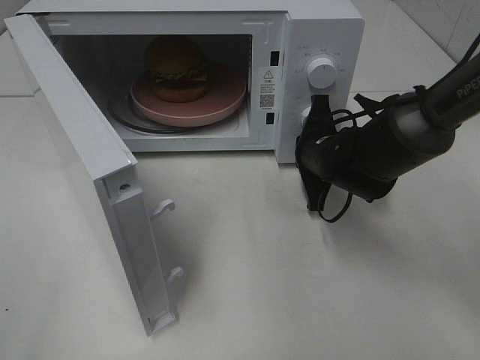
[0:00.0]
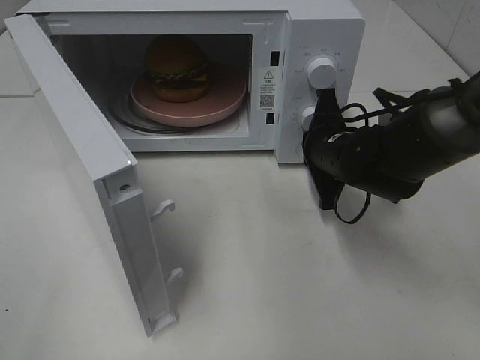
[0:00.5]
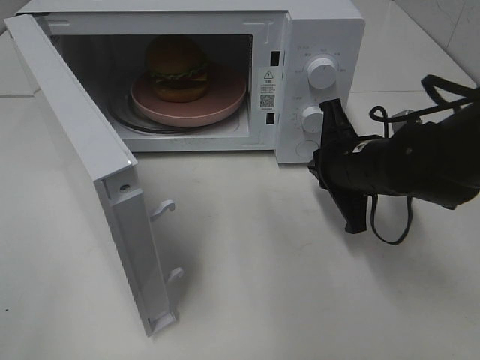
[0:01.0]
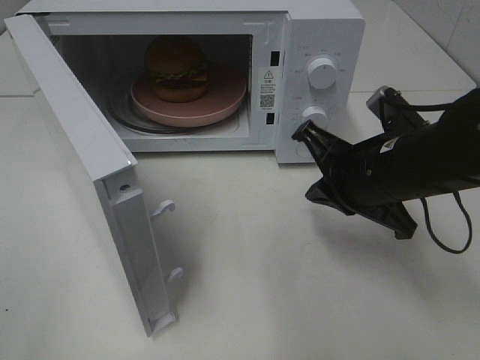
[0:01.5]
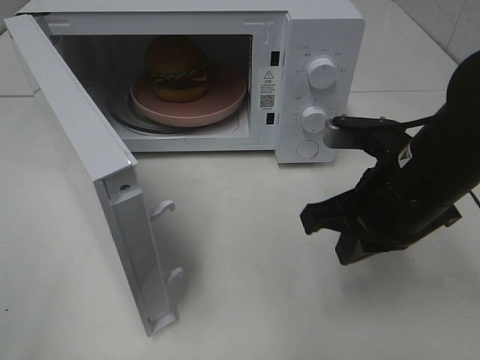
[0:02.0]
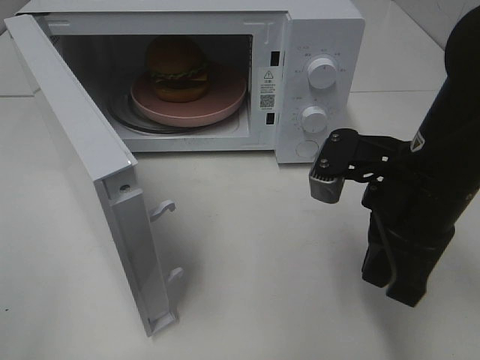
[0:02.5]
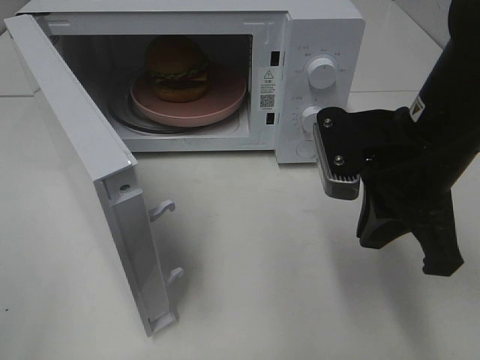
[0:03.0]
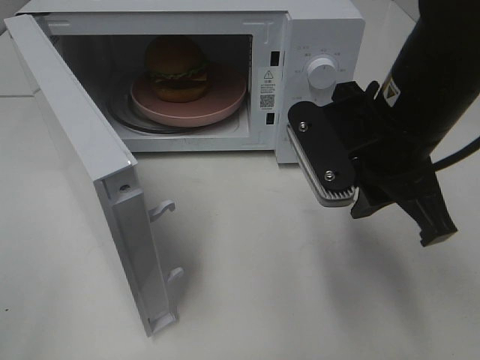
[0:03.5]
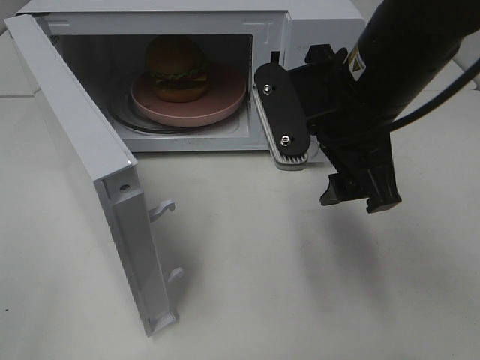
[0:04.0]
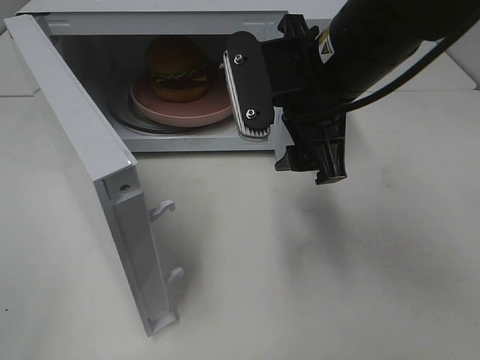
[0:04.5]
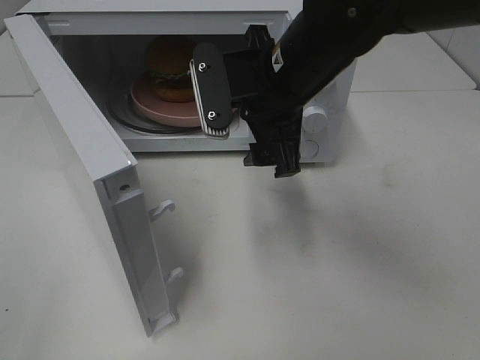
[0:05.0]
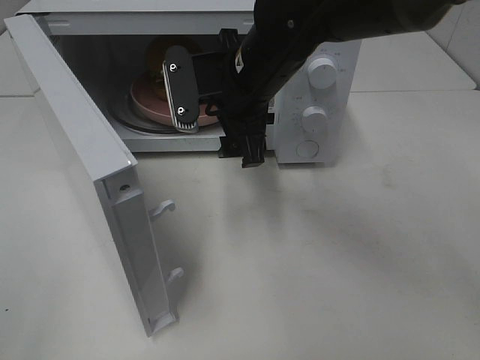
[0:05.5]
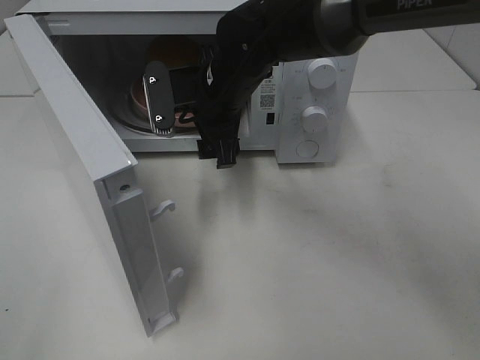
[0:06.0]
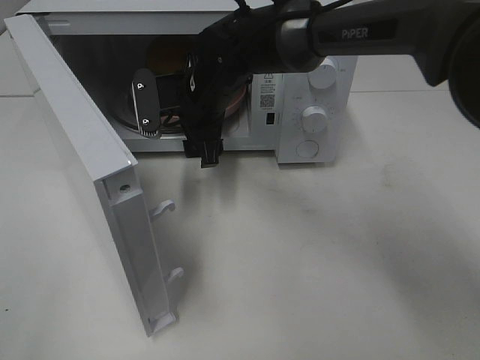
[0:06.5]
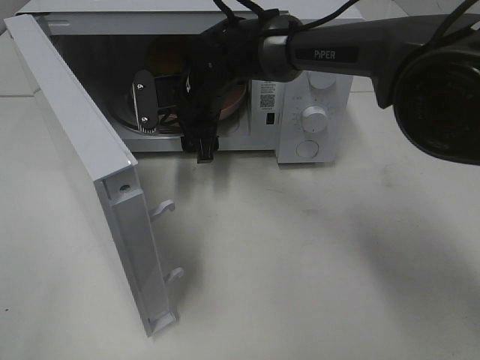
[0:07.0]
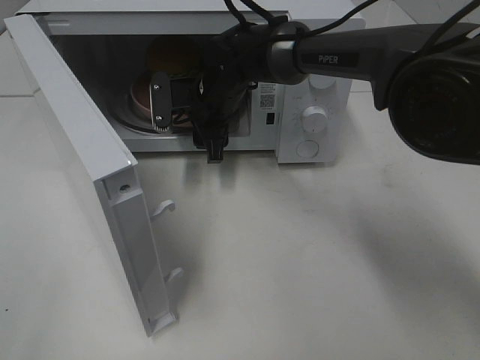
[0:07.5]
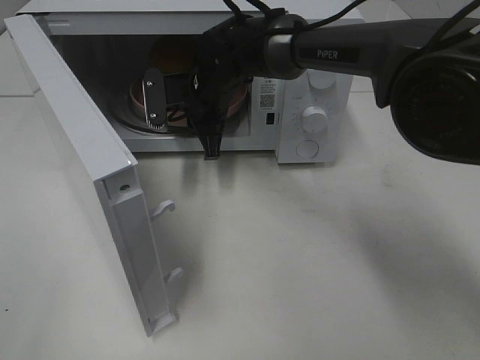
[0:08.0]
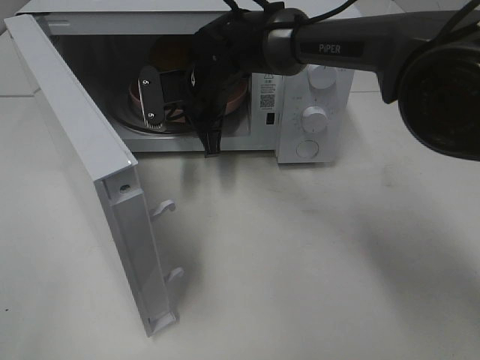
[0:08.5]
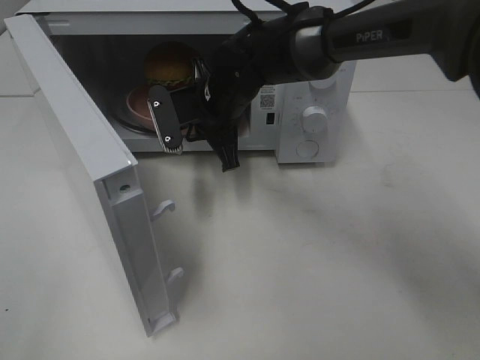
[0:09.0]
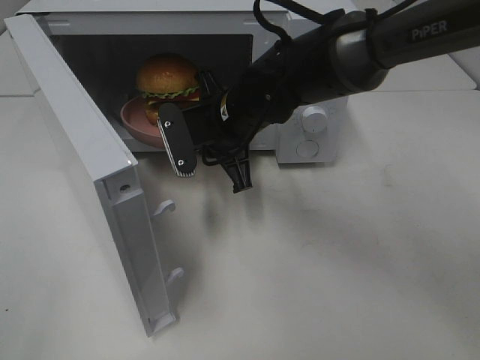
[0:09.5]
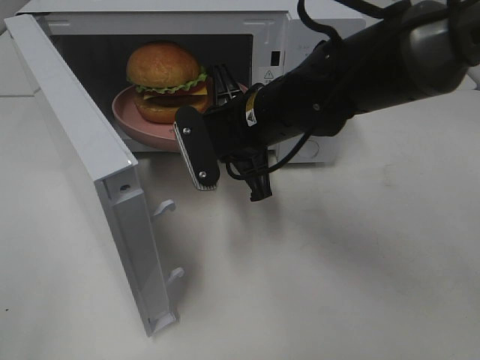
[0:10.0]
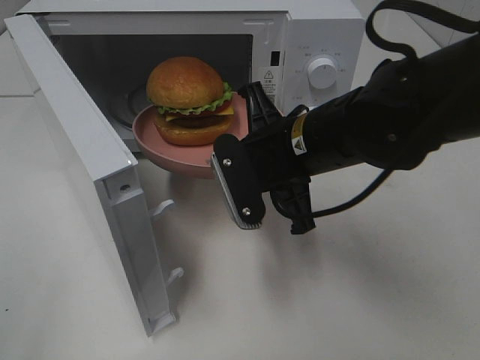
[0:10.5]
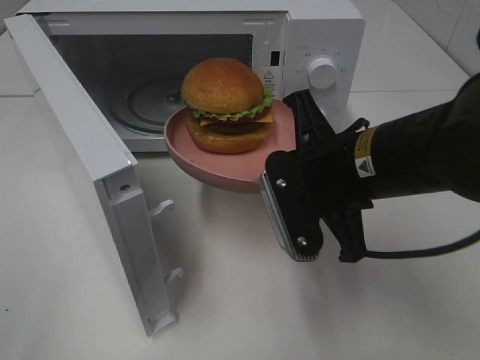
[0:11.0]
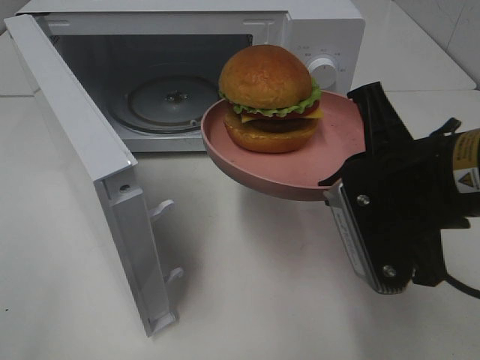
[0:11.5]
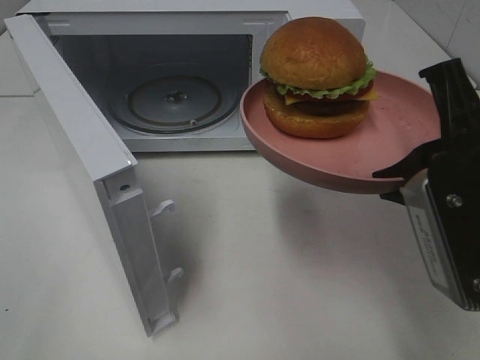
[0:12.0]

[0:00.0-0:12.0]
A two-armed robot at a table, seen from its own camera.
Task of the whole recording: Heat the burger.
Step, 0:01.0 to 0:08.0: Right hand: grab the plate with the hamburger.
0:00.0 to 0:02.0: The right gripper travels backward and upward by some 15 cm.
0:02.0 to 0:04.0: The right gripper shifts approximately 10 cm upward and to the left, and opens.
0:04.0 to 0:06.0: The right gripper is displaced forward, to the left and downward by approximately 20 cm.
0:06.0 to 0:08.0: The right gripper shifts approximately 5 cm forward, and closes.
0:08.0 to 0:10.0: The right gripper travels backward and to the right by roughly 15 cm.
0:10.0 to 0:12.0: The right gripper heads backward, to the right and upward, covering roughly 25 cm.

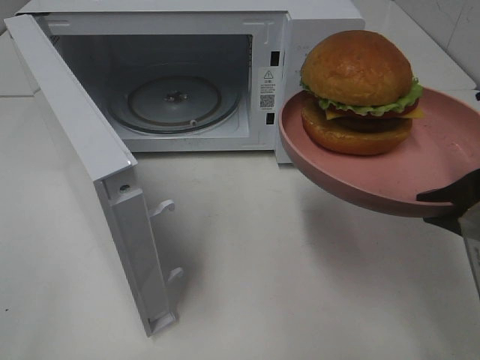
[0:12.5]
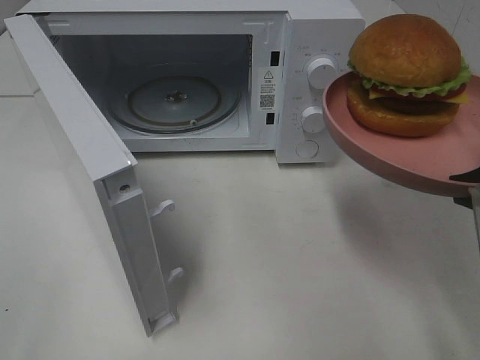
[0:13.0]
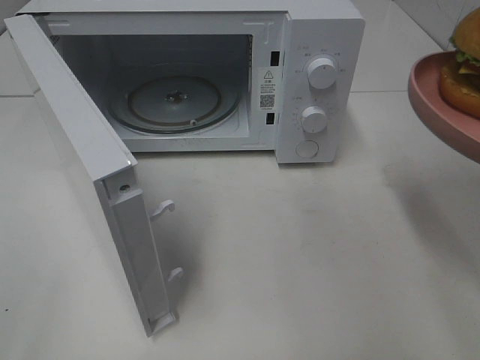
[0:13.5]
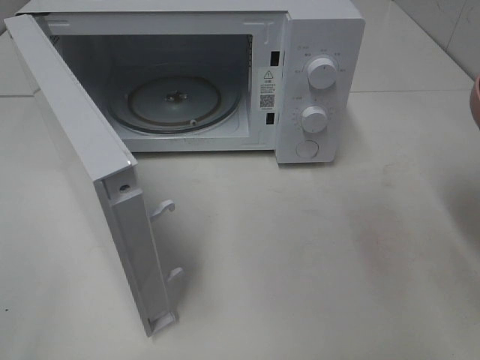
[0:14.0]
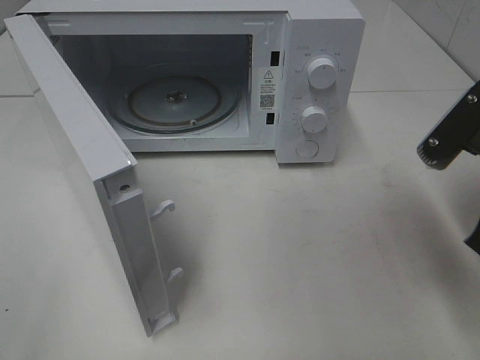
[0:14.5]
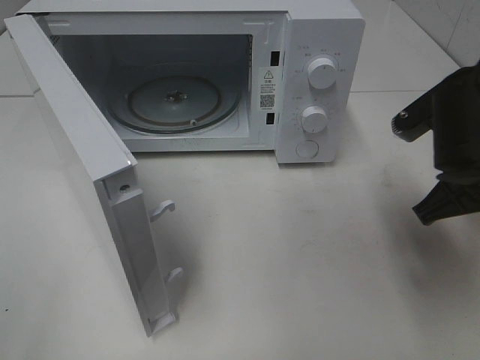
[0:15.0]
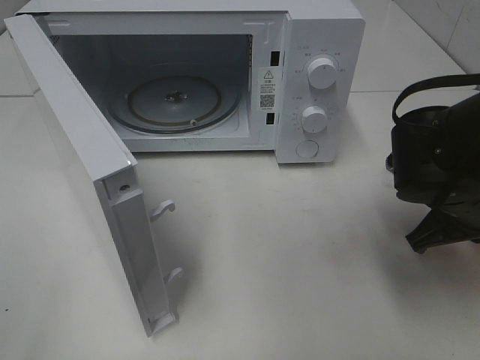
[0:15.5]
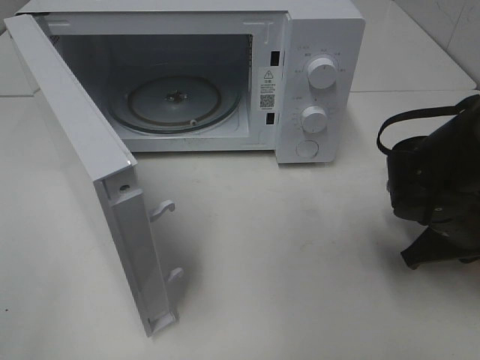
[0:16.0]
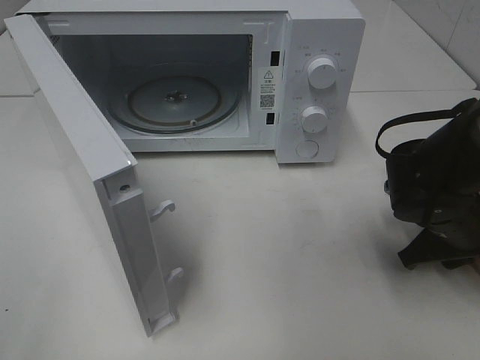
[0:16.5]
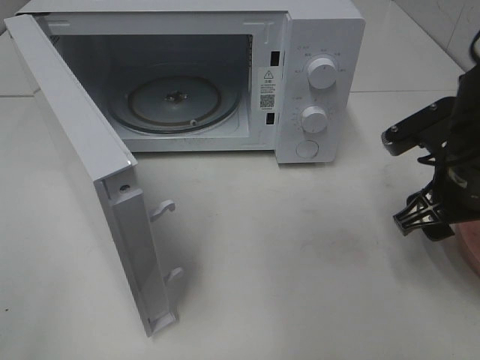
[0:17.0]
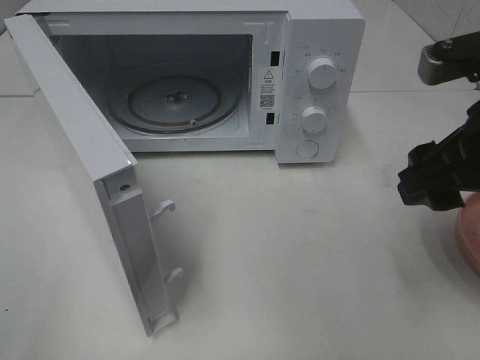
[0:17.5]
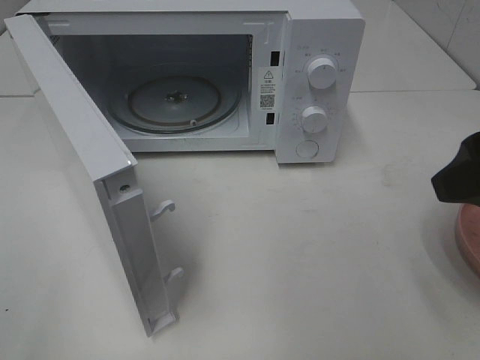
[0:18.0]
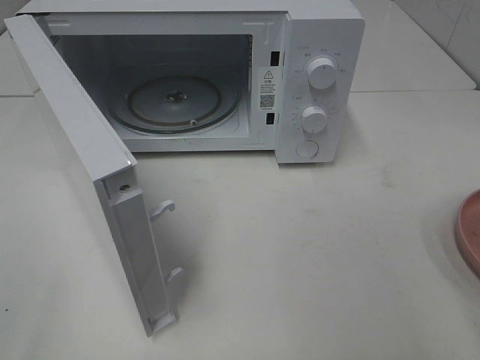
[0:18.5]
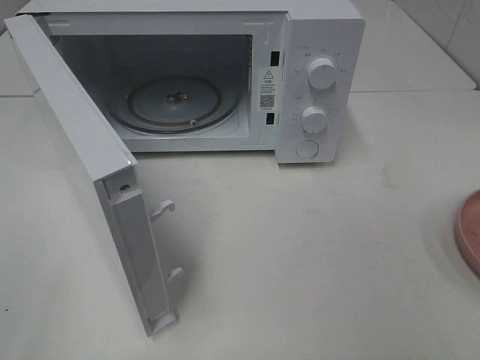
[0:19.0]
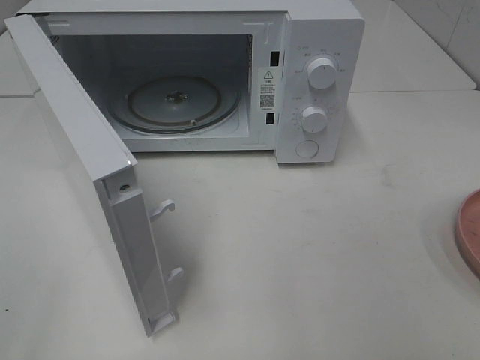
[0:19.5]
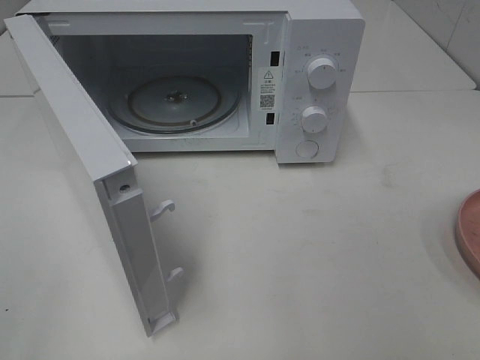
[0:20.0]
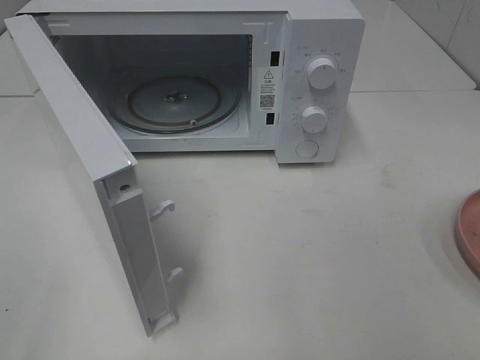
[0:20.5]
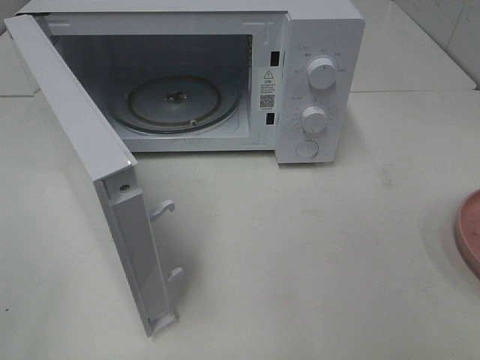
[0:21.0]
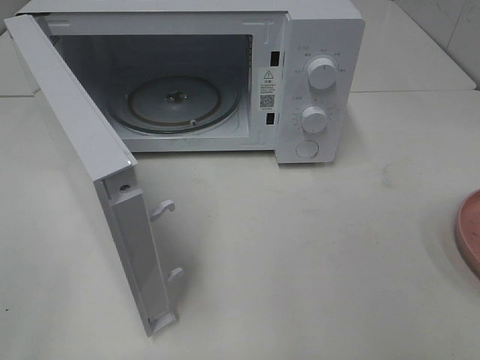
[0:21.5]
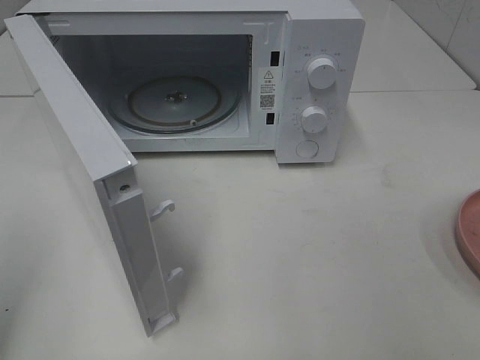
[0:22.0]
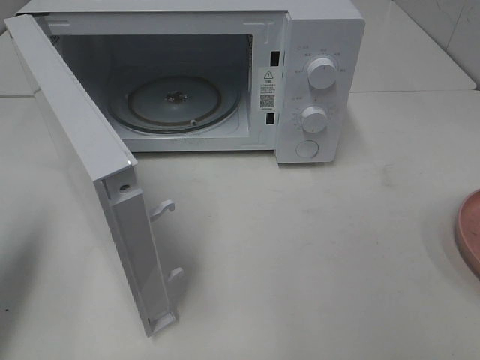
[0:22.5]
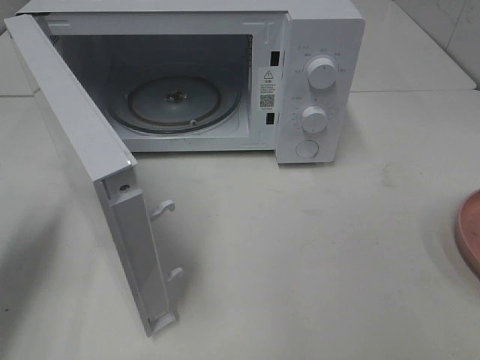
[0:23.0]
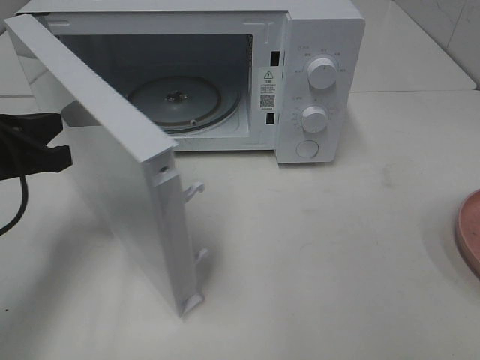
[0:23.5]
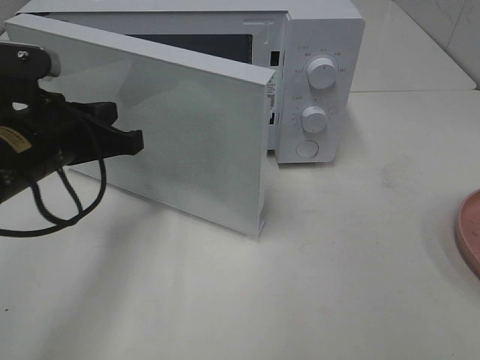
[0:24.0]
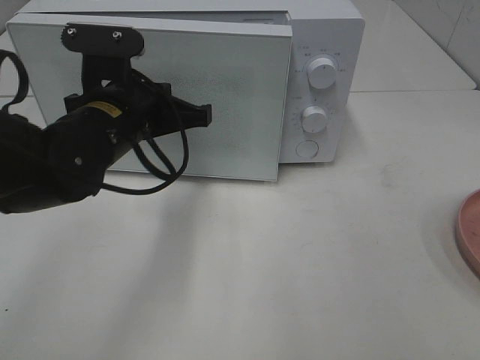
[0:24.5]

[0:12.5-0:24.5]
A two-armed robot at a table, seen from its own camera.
Task of the whole recording: Heat the burger.
Step, 0:12.5 to 0:16.5: Right hand: place the plate on the table.
0:12.5 to 0:14.5: The right gripper heads forward, covering roughly 5 cm.
0:14.5 to 0:16.5: The right gripper shifts some 15 cm downward and forward, and opens its fingers.
0:16.5 to 0:18.5: The right gripper moves upward and backward, some 25 cm.
0:20.5 to 0:22.5: The left gripper moves forward, about 15 cm, and closes its fingers.
0:22.5 to 0:24.5: The left gripper moves to the right and forward, some 25 cm.

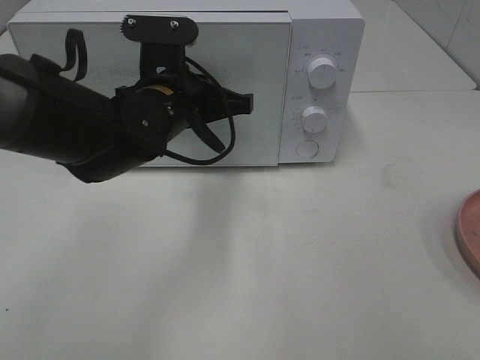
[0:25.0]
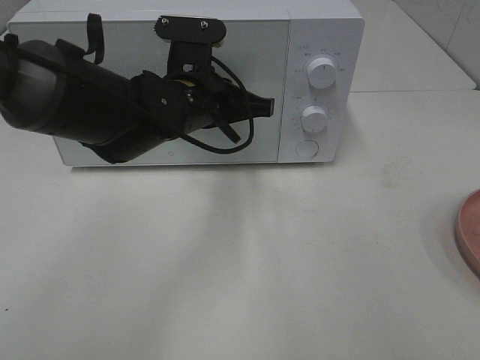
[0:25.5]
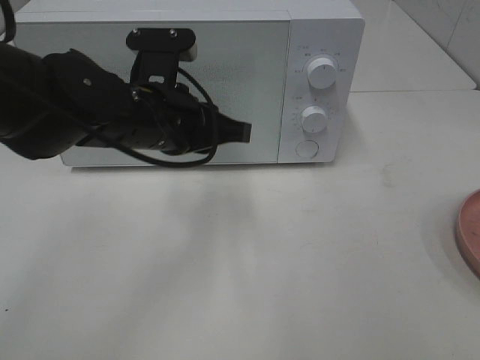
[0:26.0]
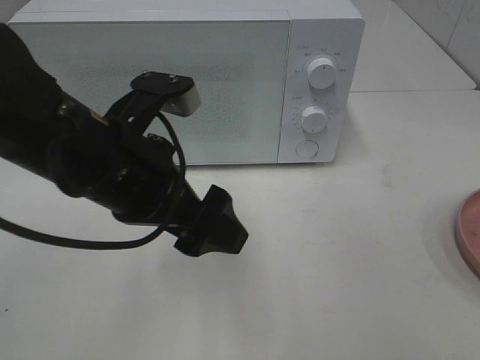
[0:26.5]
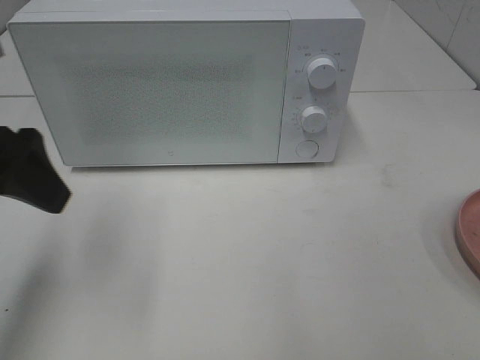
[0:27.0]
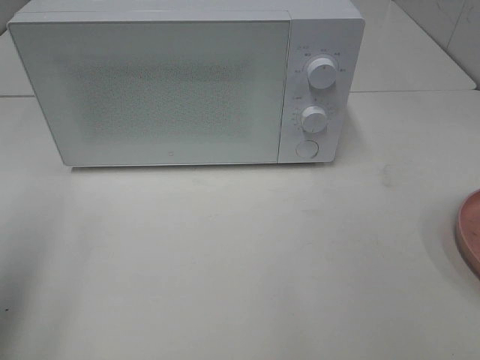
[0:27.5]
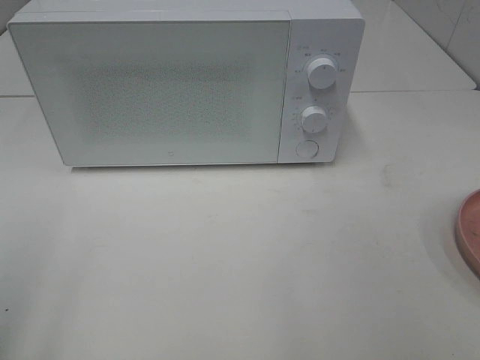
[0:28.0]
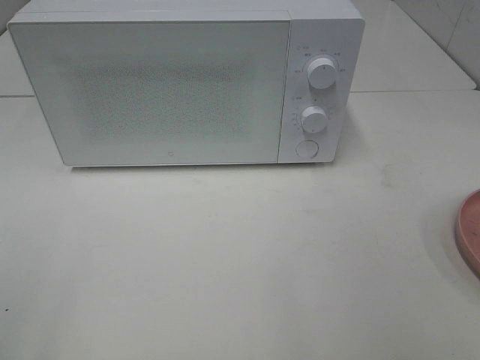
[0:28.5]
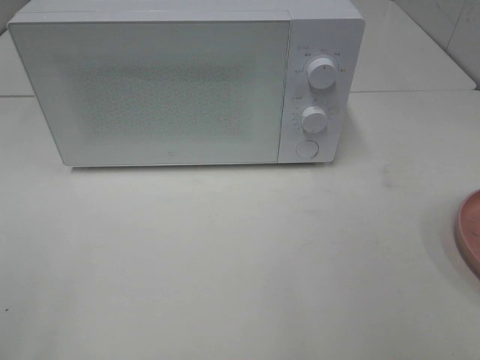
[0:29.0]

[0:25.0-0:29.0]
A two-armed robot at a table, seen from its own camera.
Task of the whole recording: Heat the burger.
0:25.0 to 0:27.0: The left gripper is displaced to the left, backward and upward by about 25 cm, and opens up.
0:27.0 to 0:29.0: The left gripper is displaced backward by some 20 cm.
